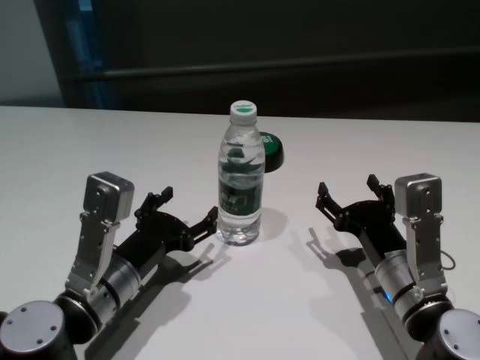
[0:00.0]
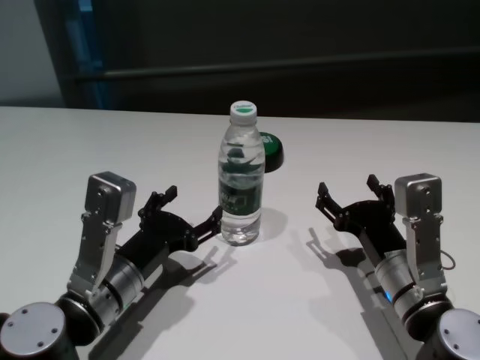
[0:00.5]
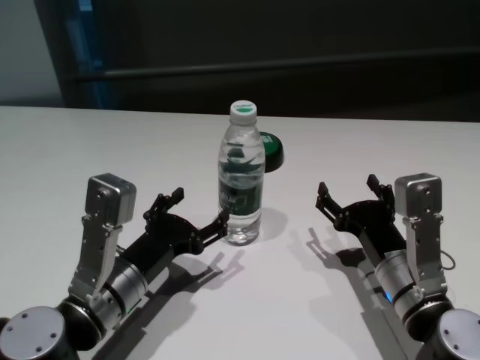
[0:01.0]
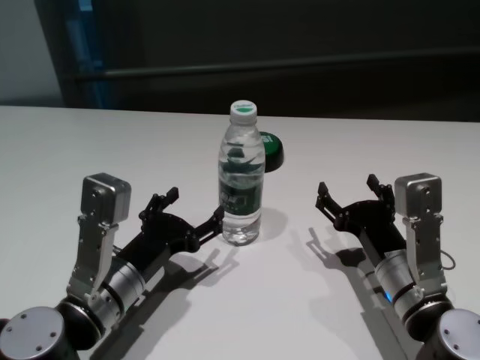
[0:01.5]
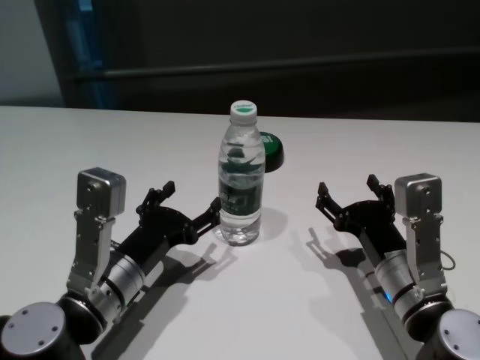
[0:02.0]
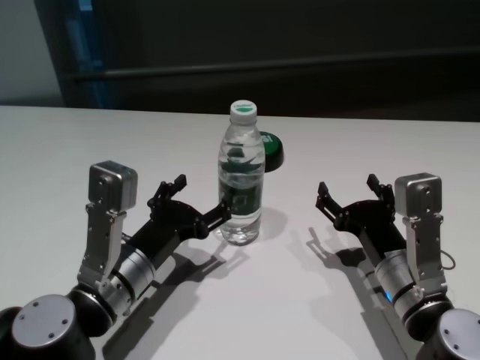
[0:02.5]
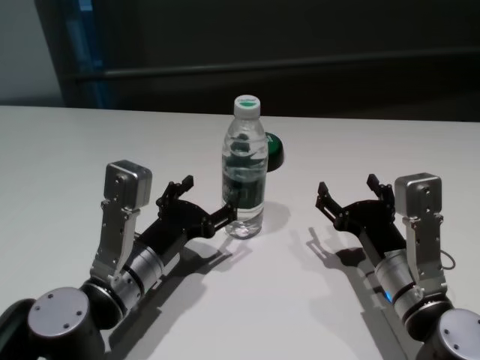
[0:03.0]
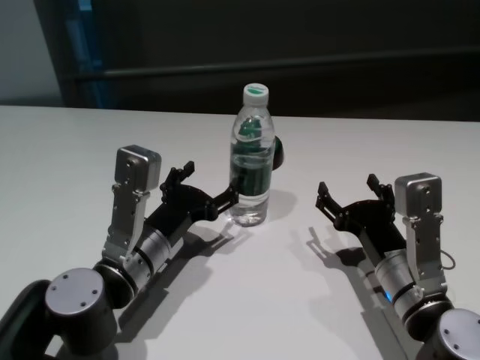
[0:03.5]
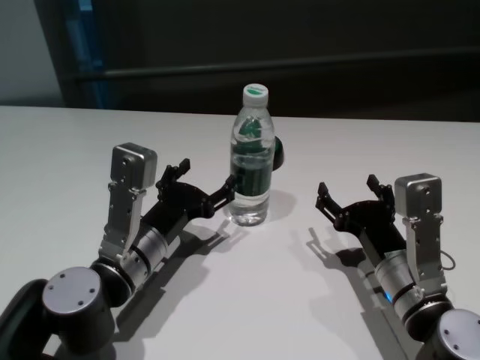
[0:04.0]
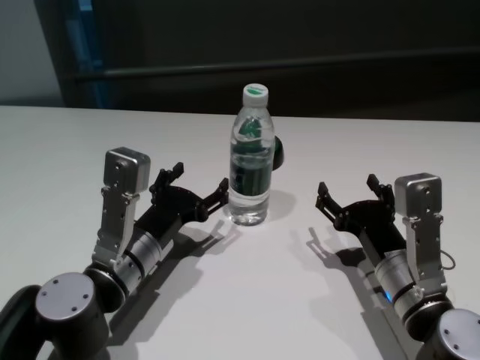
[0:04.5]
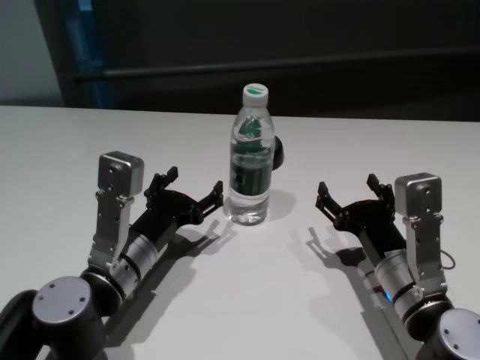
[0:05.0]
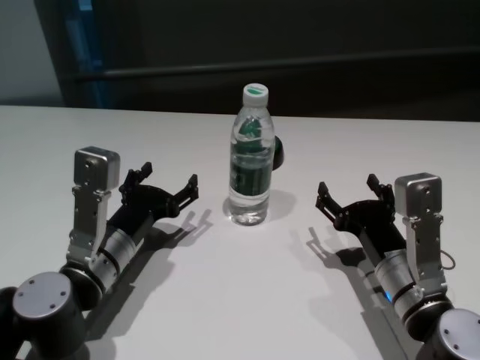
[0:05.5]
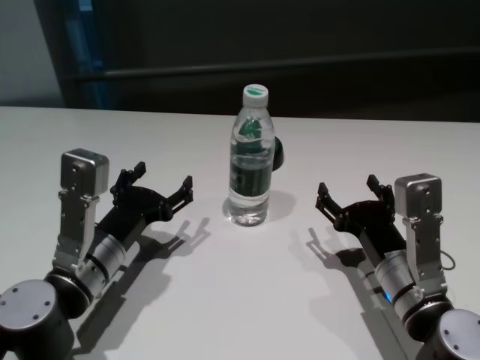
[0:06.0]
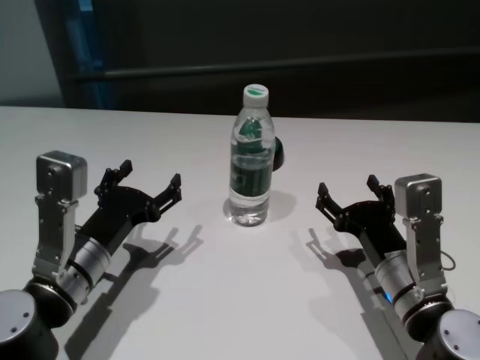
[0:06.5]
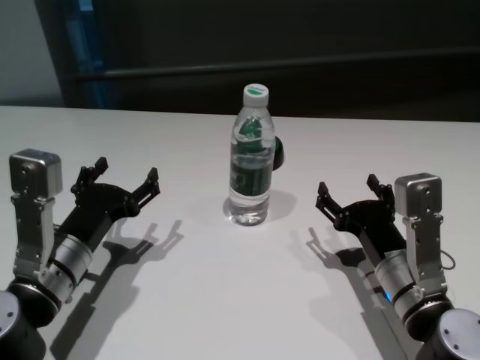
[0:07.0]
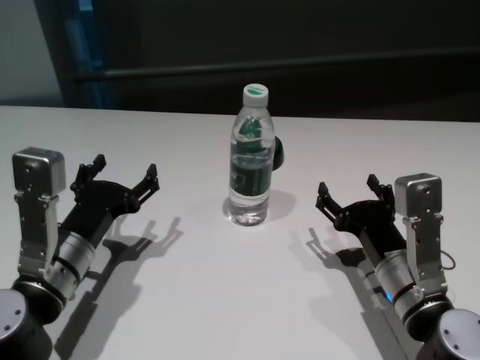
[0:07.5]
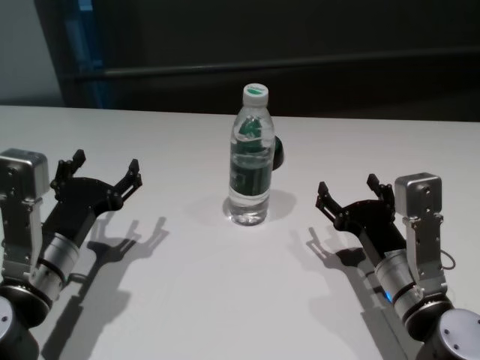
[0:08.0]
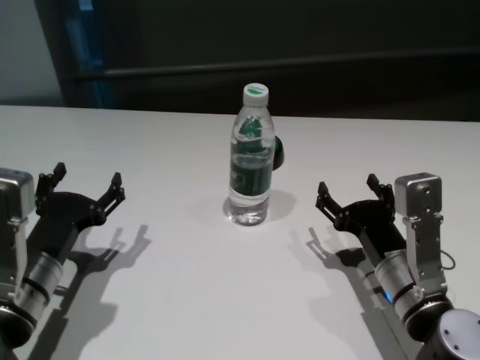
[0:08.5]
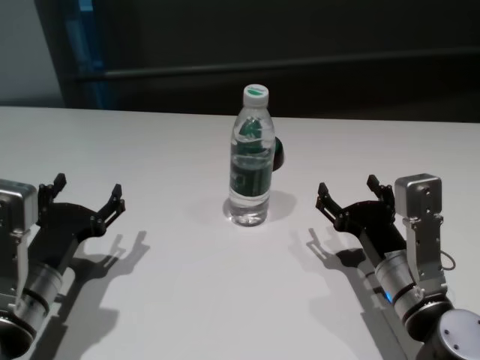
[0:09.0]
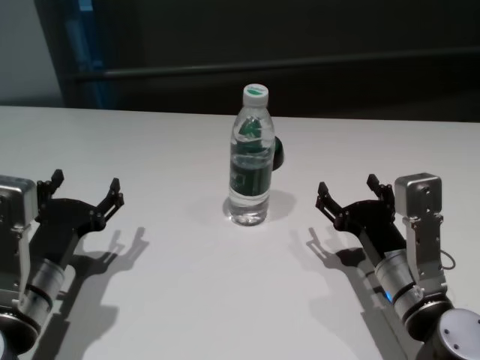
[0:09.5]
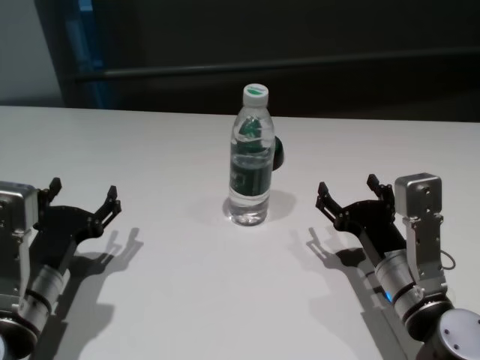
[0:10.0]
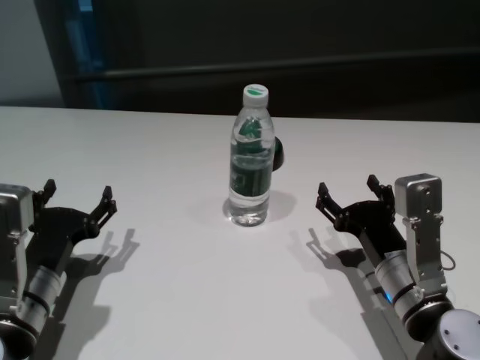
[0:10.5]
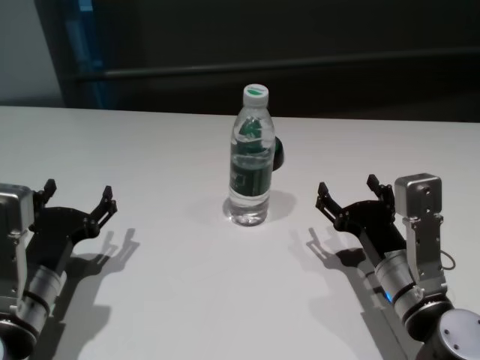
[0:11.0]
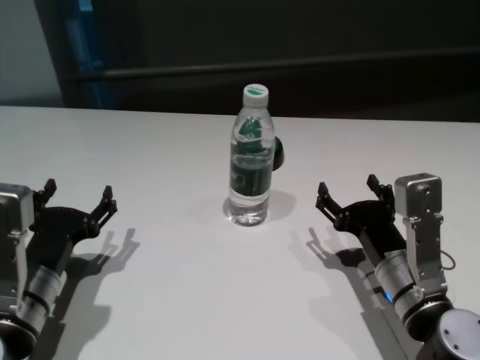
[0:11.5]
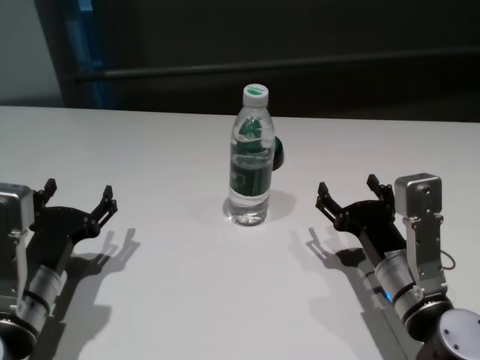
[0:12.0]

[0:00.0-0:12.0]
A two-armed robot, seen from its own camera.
Task of the whole recording: return to a safe position after touching an obstacle with your arm on the white table.
Step, 0:00.0 to 0:05.0: Touch the bottle with left gripper.

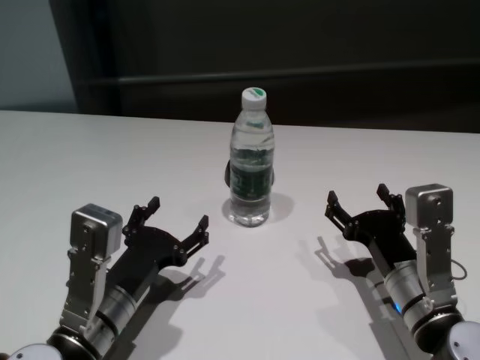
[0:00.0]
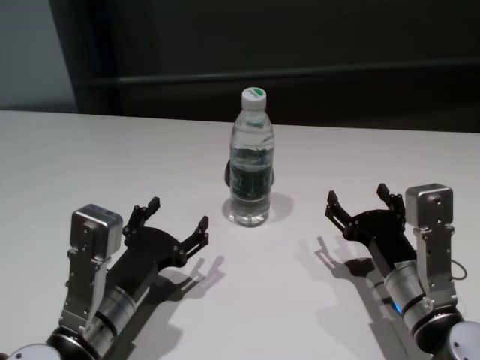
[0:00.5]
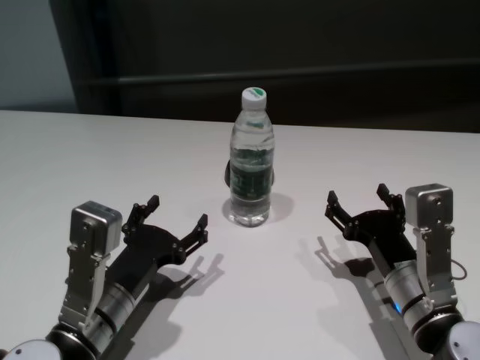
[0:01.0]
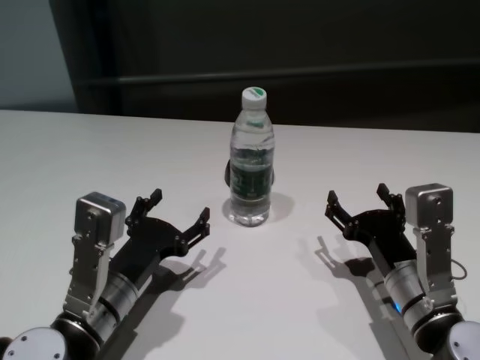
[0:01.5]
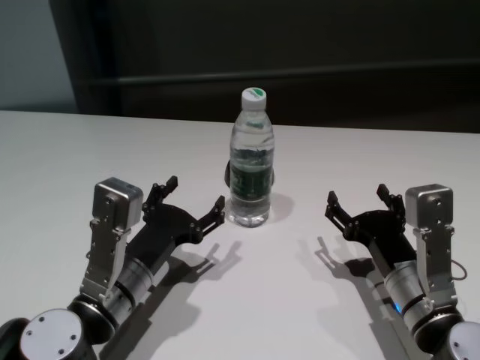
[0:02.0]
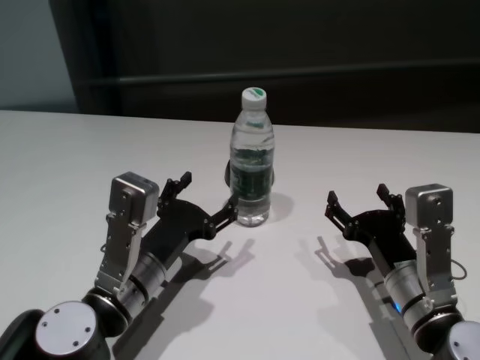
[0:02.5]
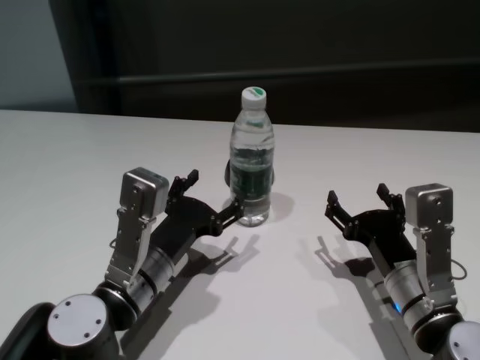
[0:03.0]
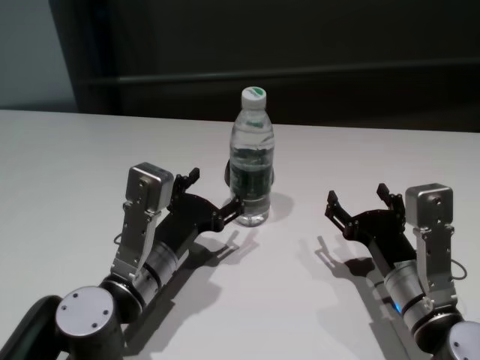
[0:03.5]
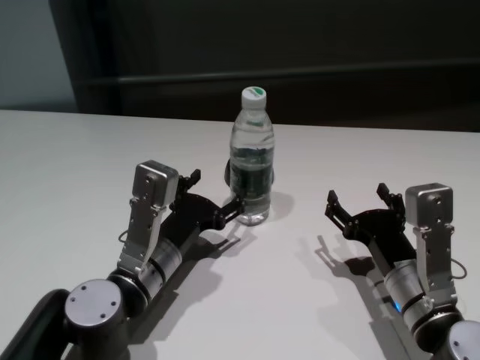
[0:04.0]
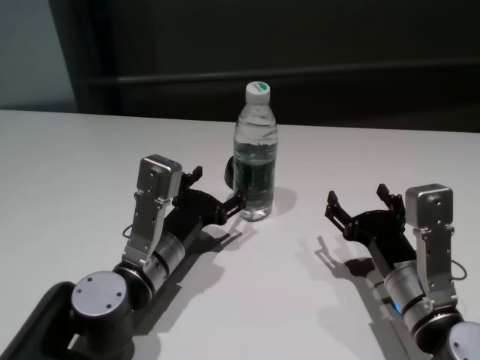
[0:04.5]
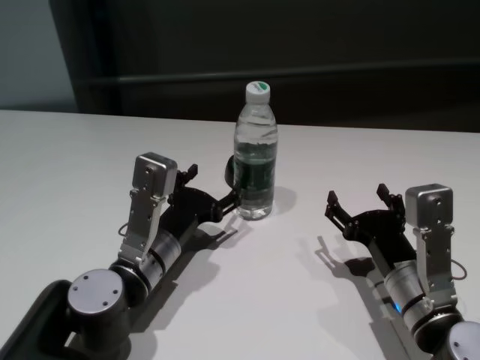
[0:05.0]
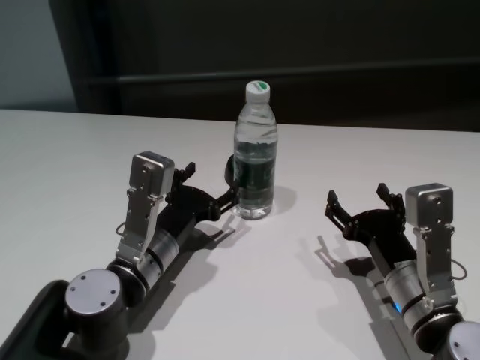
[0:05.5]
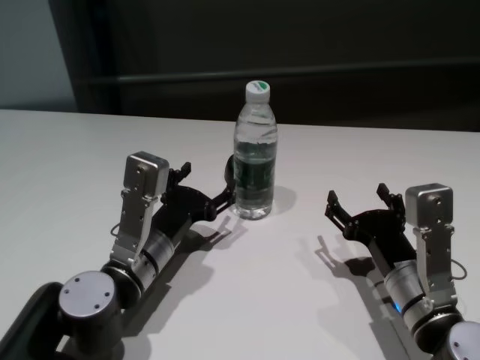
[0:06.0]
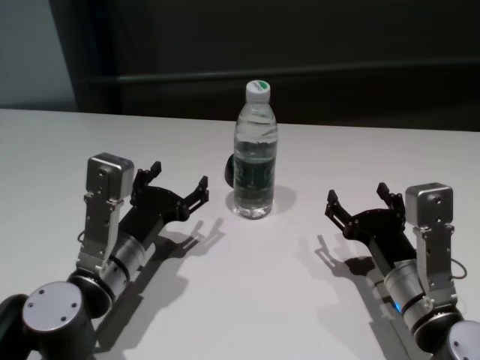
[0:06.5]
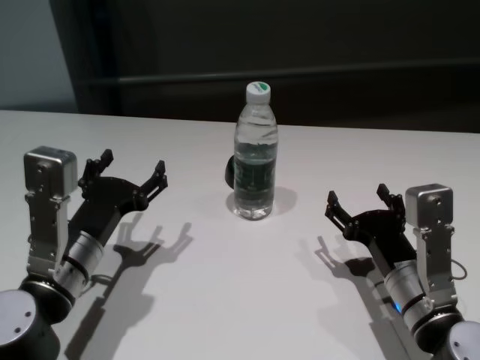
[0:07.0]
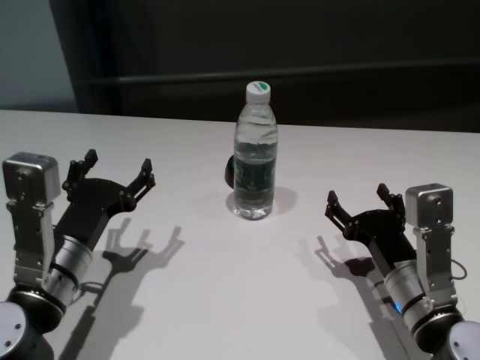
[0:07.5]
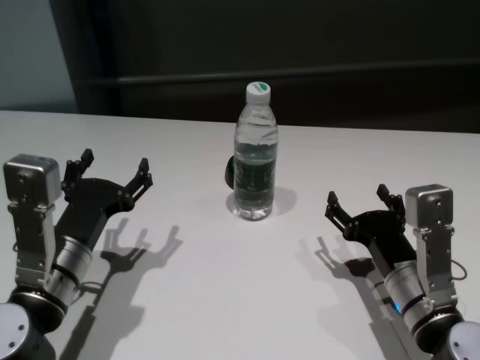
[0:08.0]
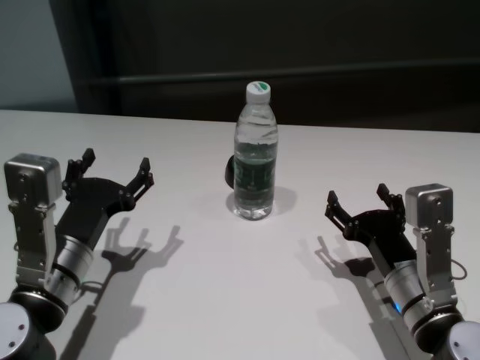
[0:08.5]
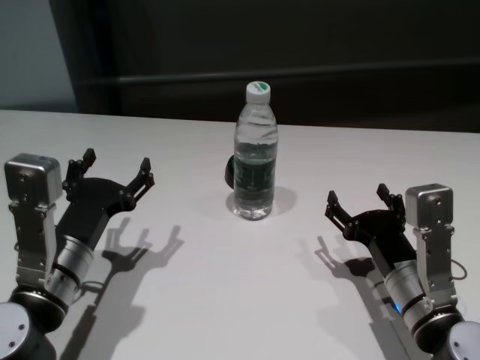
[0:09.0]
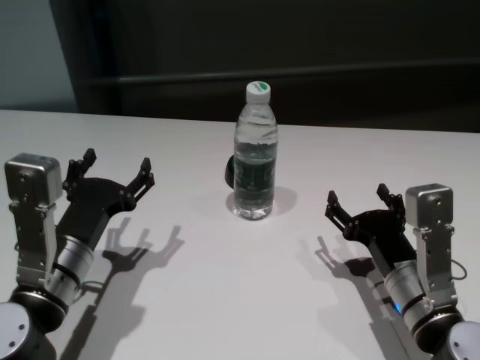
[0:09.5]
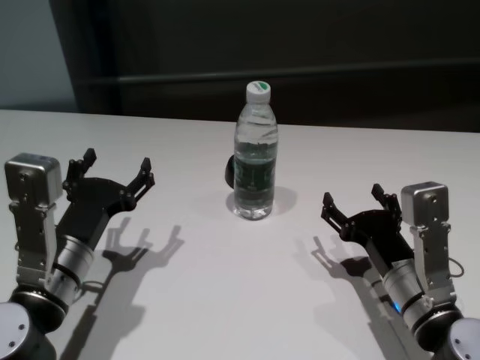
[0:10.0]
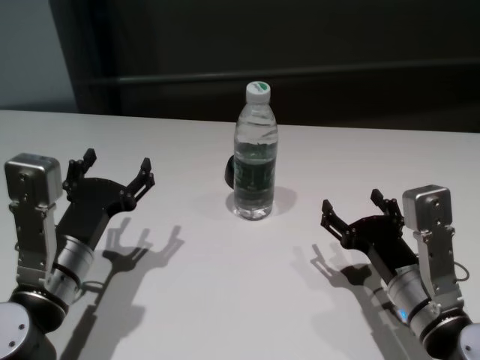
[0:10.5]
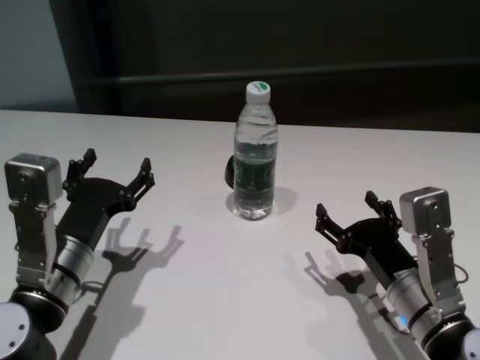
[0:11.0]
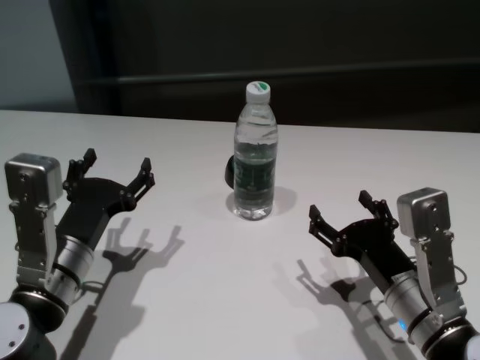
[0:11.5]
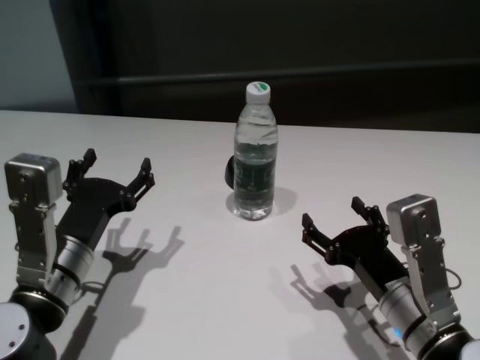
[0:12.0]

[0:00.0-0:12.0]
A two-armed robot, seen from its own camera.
Task of the whole recording: return to a safe position after touching an obstacle with your arm on the white table.
Step, 0:00.0 to 0:06.0: Touch the bottle with left gripper.
